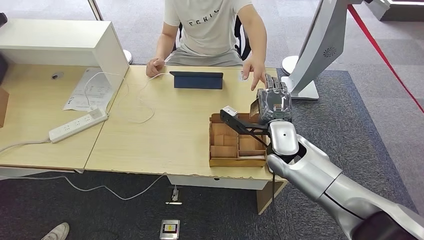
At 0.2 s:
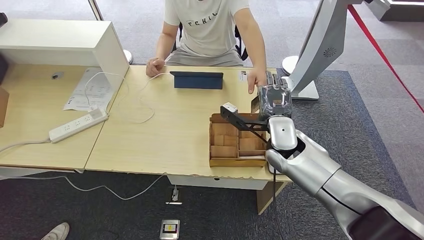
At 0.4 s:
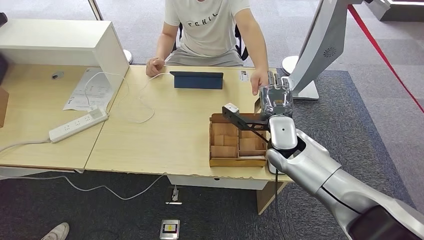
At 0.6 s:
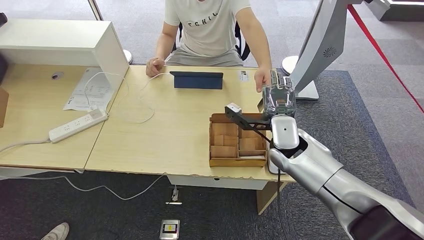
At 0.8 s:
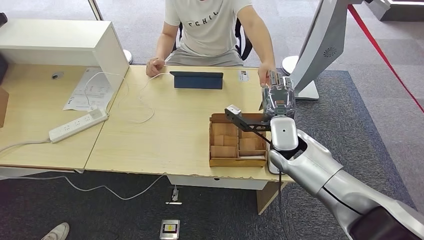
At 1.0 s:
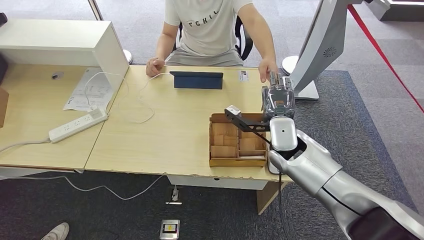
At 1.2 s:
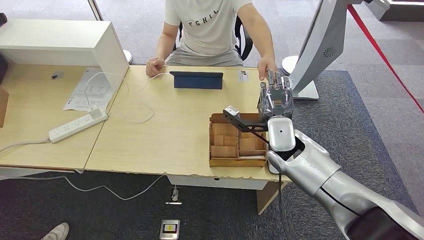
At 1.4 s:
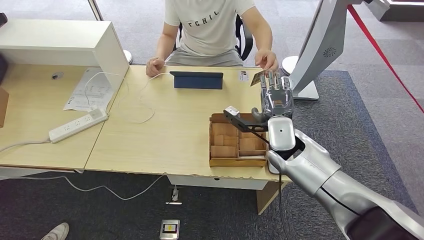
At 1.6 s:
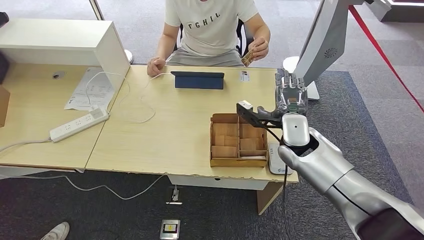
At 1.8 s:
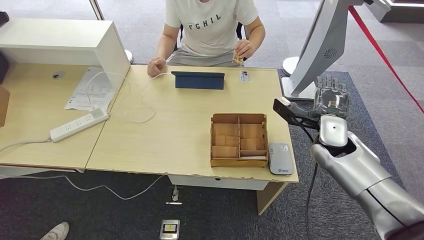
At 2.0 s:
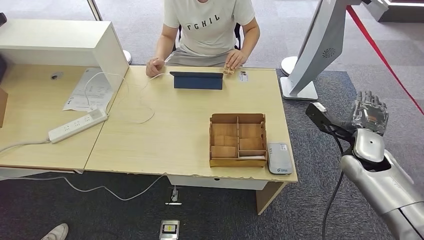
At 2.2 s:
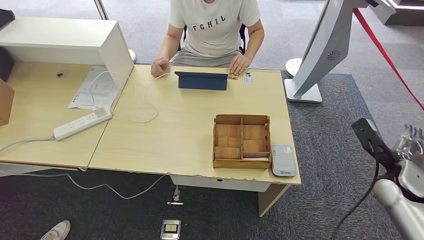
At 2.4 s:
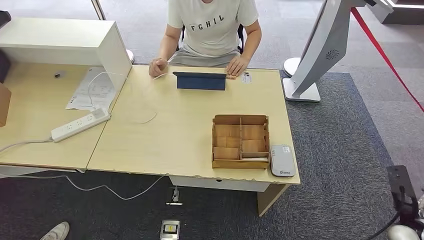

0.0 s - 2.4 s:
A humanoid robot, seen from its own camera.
Step, 0.0 s - 2.2 s: Hand the room key to the person.
0.0 s - 1.2 s: The hands stay close to where they were, moving slightly.
1.2 s - 2.4 s: The right hand is displaced to the right, backward and downward by about 40 cm.

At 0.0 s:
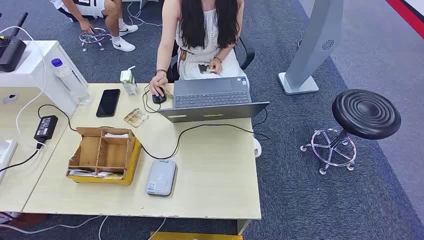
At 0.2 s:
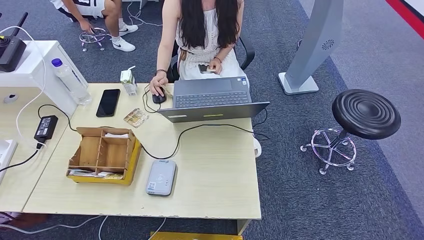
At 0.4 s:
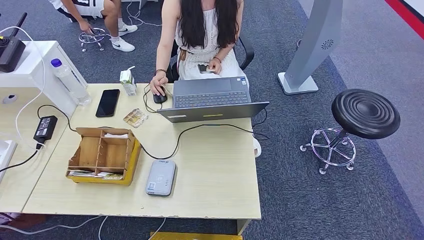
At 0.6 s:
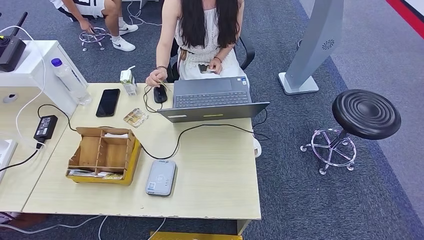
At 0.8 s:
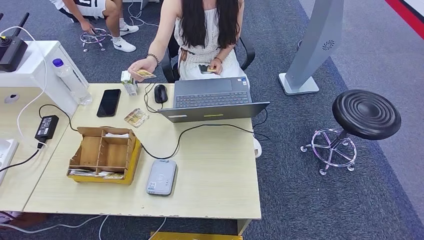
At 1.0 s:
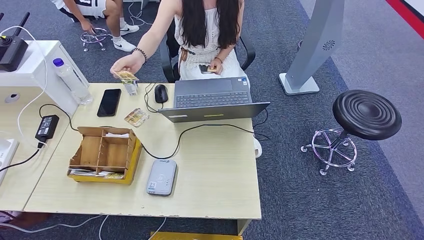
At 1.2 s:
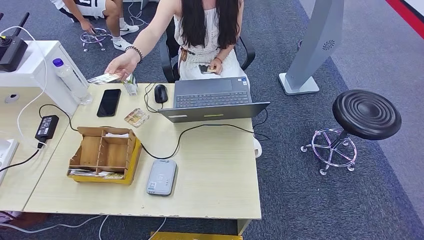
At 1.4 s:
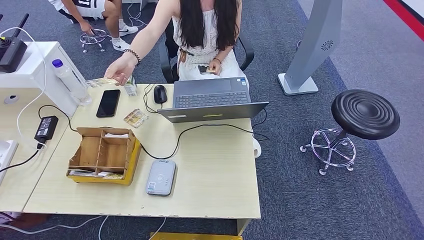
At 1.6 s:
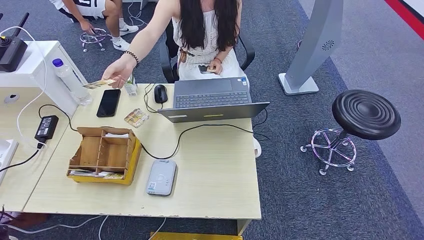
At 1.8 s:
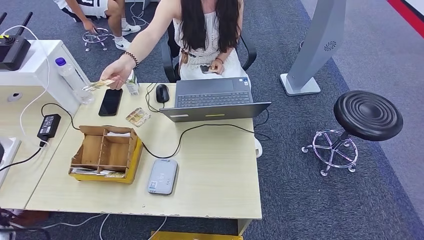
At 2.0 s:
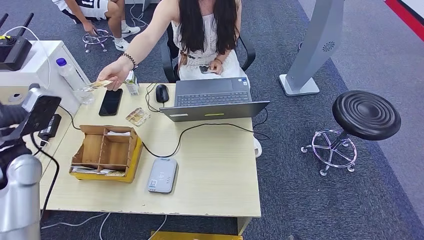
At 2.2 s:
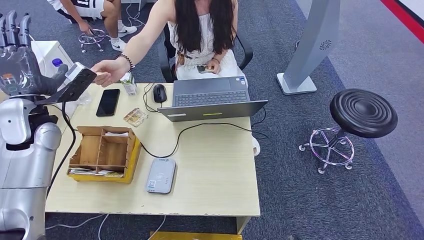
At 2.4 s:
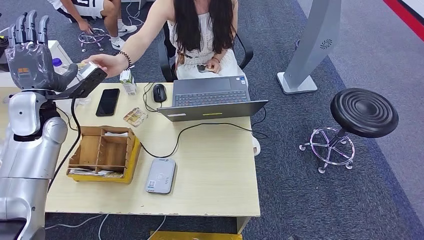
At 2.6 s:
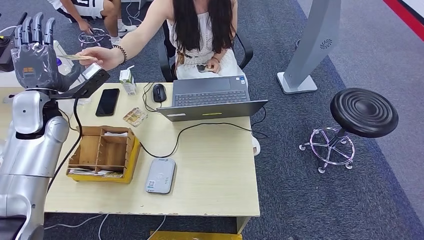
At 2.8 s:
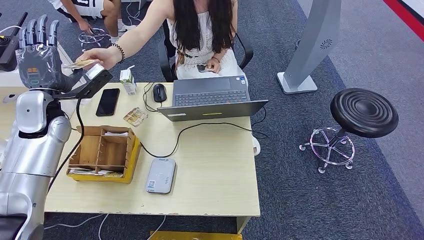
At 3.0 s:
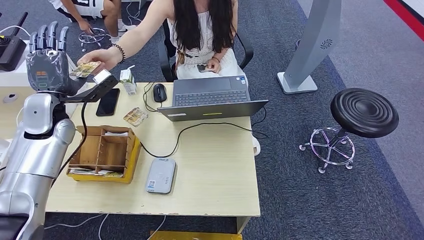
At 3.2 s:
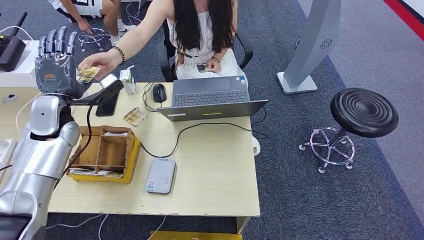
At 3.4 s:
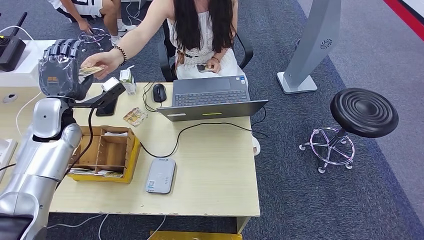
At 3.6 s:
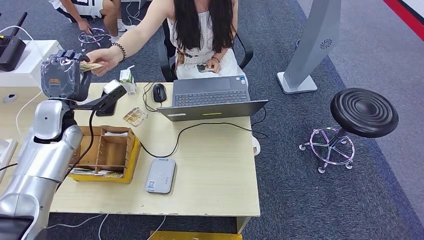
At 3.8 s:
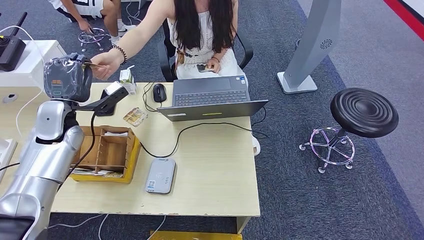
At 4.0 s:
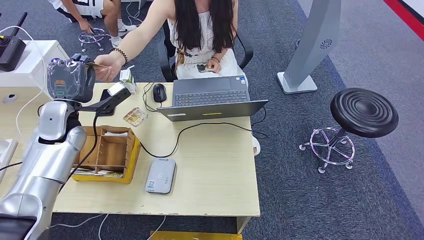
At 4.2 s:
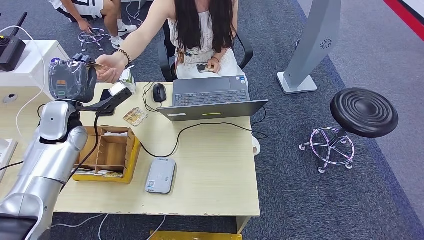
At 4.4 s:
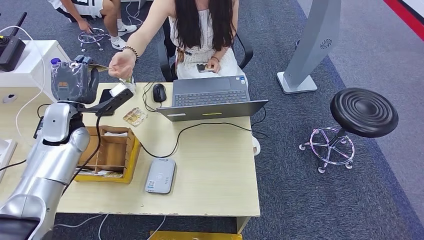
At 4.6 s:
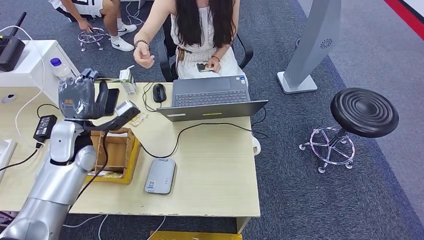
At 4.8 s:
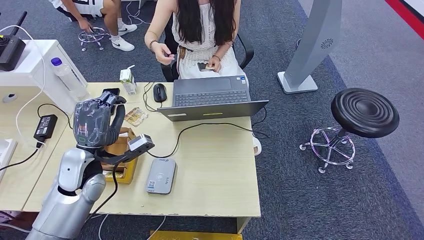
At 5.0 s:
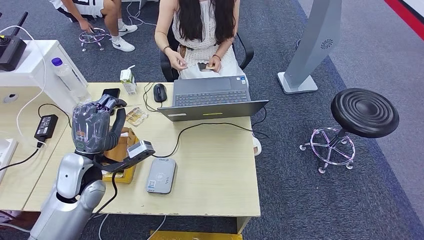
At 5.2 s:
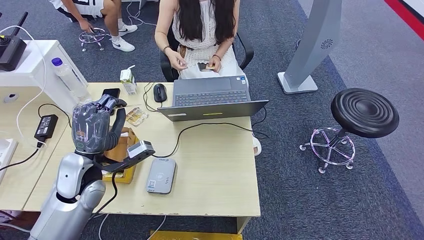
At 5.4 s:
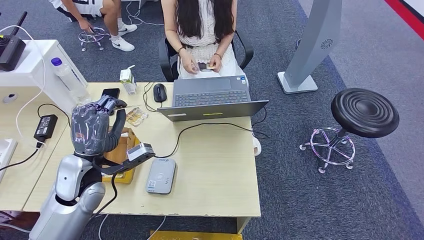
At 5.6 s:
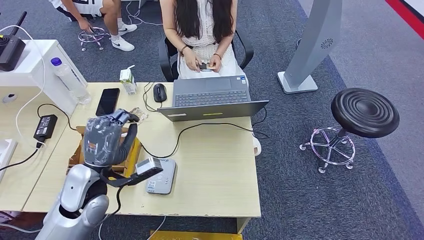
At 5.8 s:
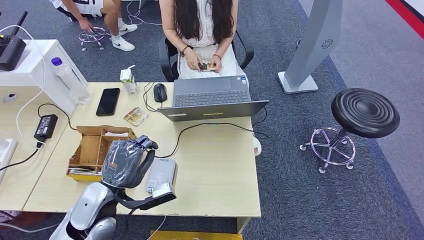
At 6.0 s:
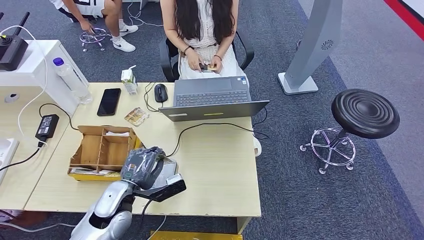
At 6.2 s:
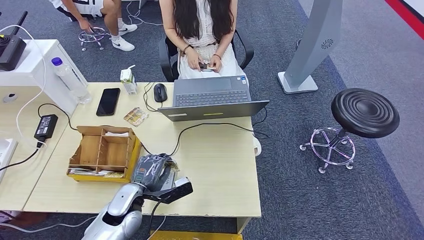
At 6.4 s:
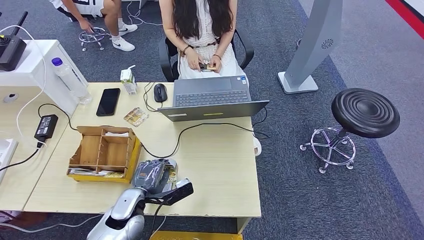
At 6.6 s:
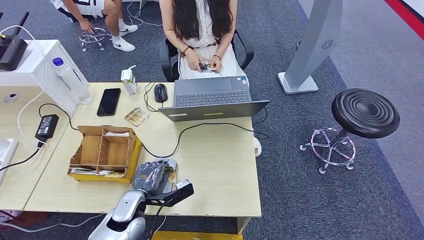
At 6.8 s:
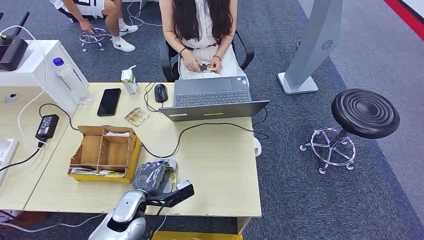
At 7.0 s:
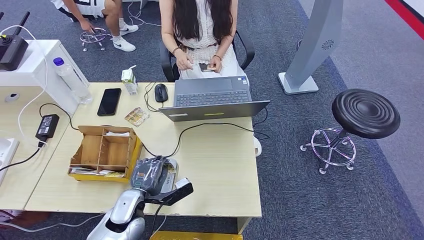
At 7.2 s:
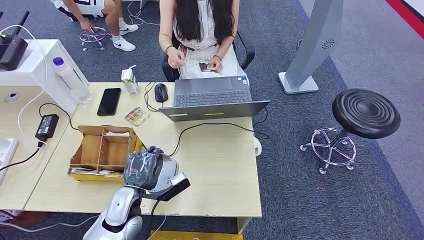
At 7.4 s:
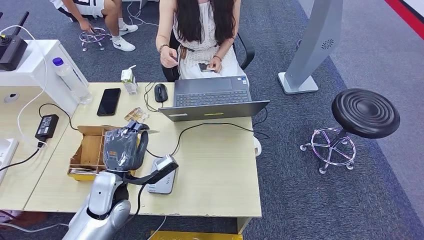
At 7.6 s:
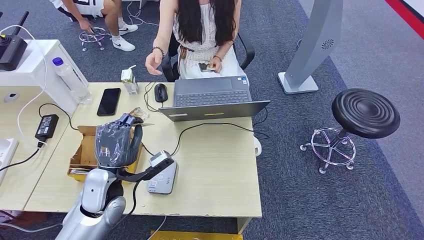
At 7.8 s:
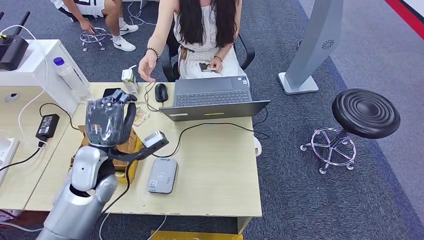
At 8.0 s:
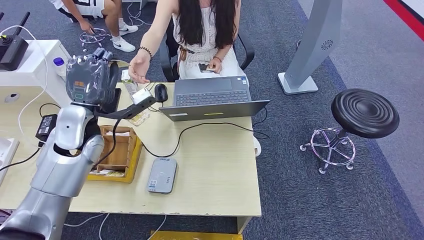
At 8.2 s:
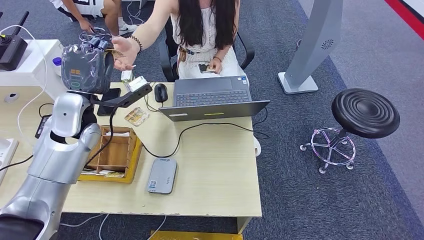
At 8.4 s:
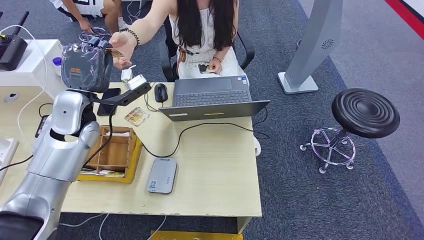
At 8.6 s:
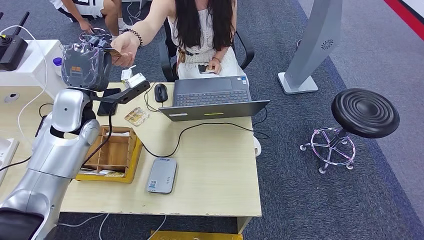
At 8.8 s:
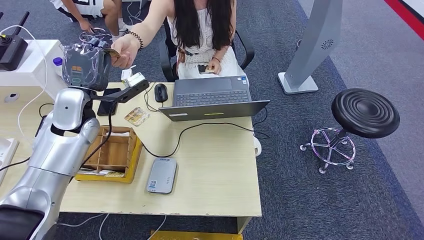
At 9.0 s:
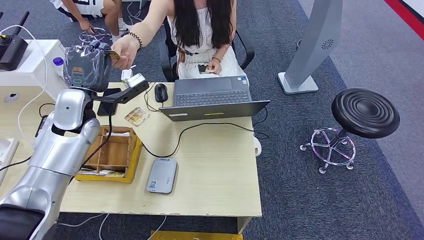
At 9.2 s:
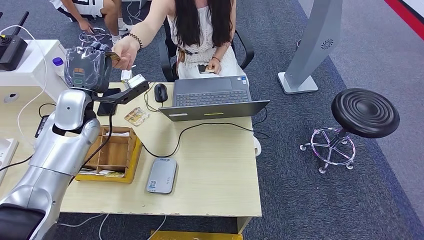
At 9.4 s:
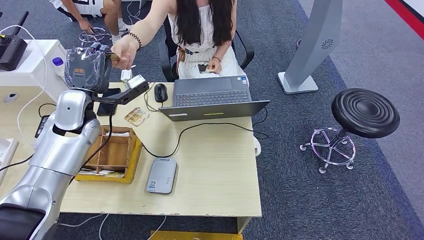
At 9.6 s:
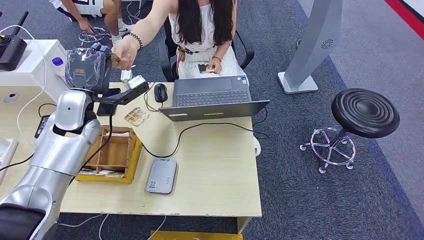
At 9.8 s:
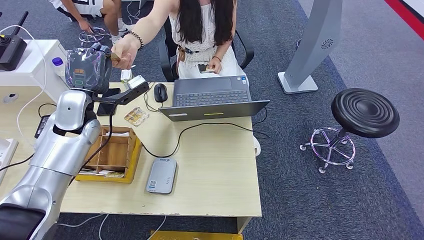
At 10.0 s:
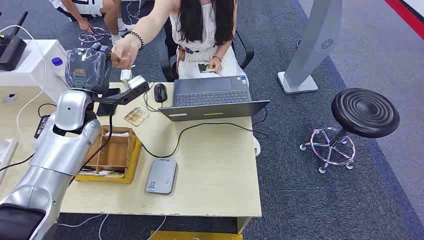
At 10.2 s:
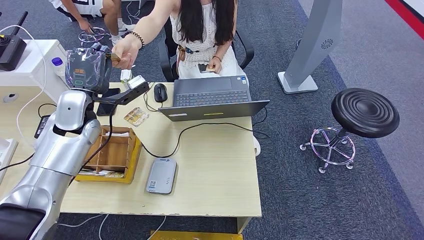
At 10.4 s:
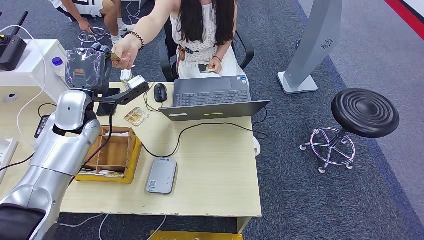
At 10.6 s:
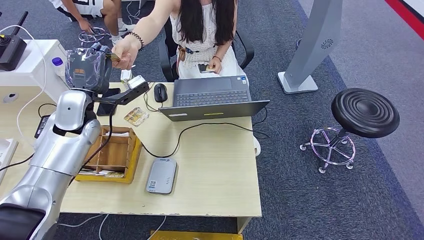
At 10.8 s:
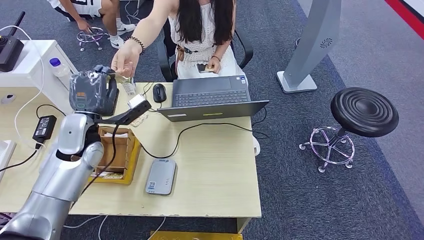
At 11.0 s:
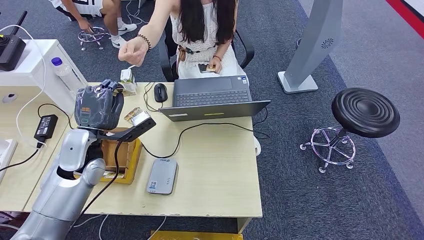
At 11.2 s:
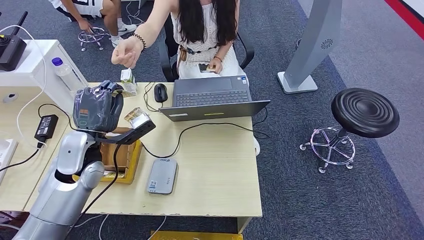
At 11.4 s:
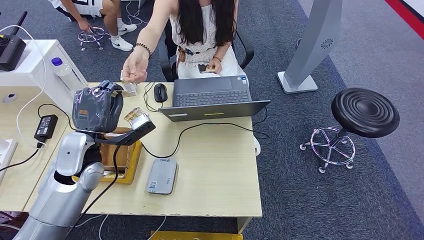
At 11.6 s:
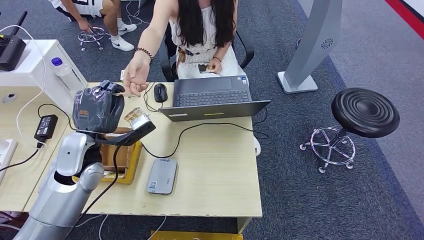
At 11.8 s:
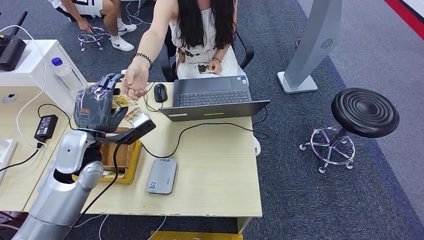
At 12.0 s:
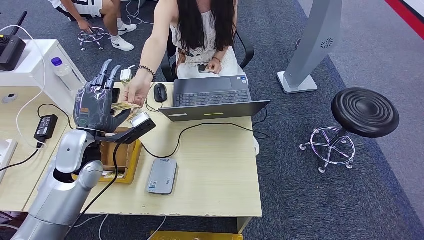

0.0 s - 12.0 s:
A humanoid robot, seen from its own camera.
Step, 0.0 s - 5.4 s: Take the ID card from the person's hand.
Step, 5.6 s - 7.2 s: Place the ID card on the card reader.
Step, 7.4 s - 9.8 s: Hand the ID card to the person.
3.0 s - 4.4 s: The hands stay close to where they were, moving slightly.
6.0 s - 7.6 s: The left hand ends up some 5 cm from where it was.
7.6 s - 9.0 s: The left hand goes approximately 20 cm forward, upward and to the left.
9.0 s - 10.4 s: The two hands keep their place.
10.4 s - 12.0 s: The left hand moves backward, about 10 cm.

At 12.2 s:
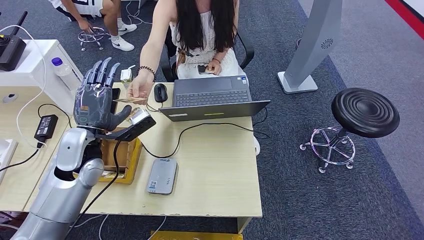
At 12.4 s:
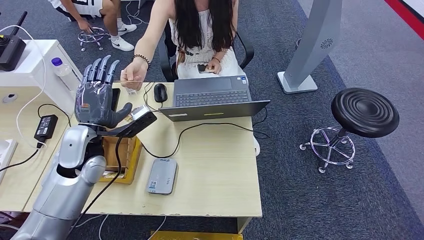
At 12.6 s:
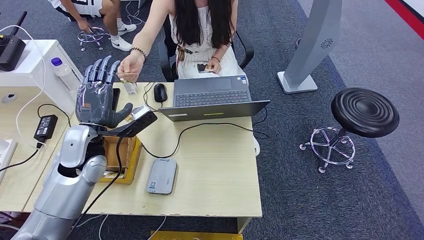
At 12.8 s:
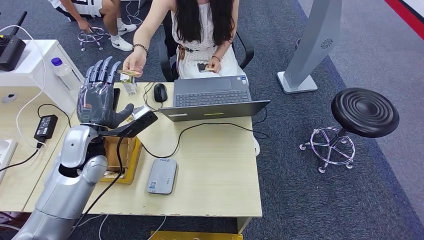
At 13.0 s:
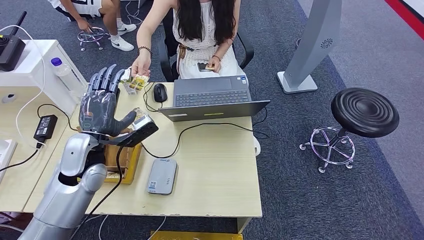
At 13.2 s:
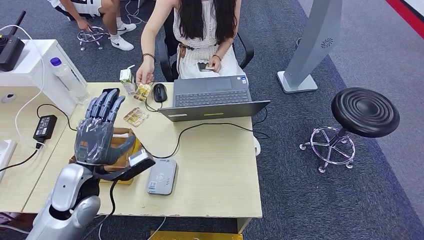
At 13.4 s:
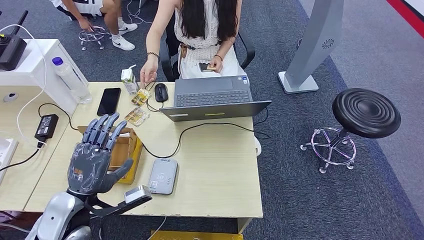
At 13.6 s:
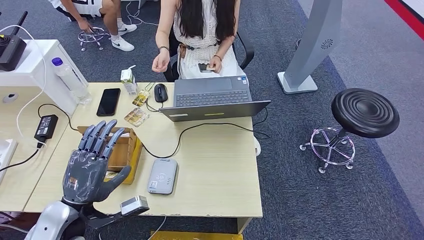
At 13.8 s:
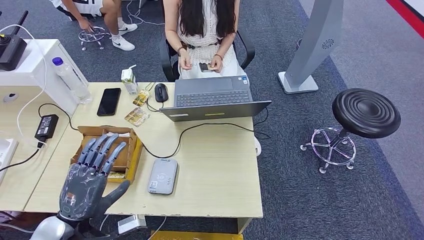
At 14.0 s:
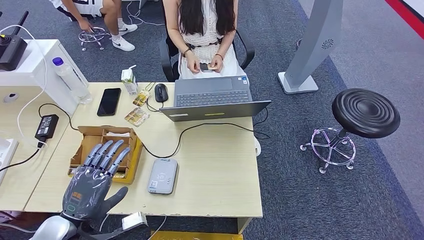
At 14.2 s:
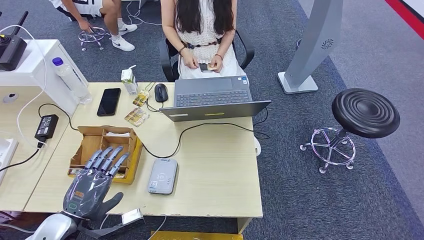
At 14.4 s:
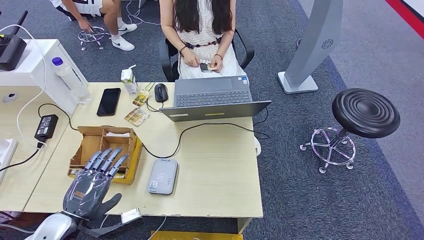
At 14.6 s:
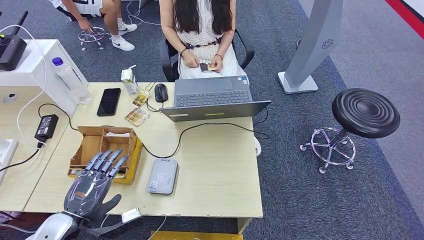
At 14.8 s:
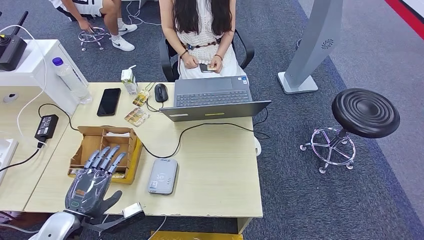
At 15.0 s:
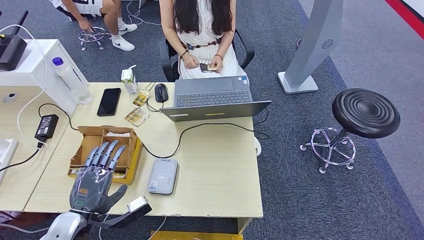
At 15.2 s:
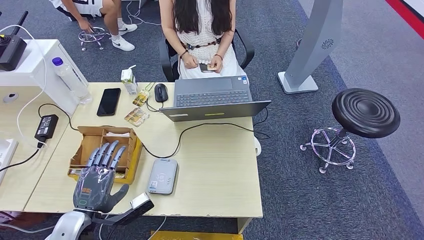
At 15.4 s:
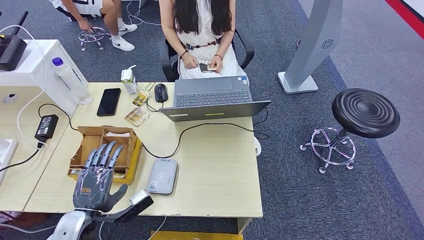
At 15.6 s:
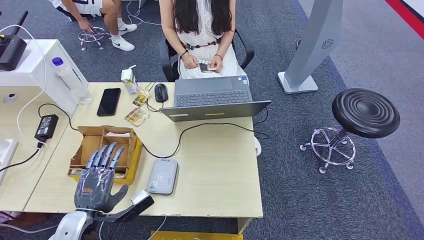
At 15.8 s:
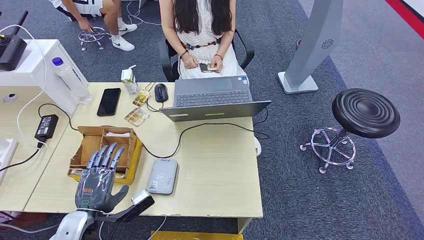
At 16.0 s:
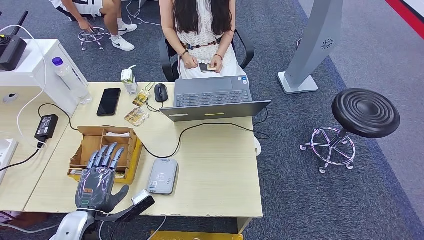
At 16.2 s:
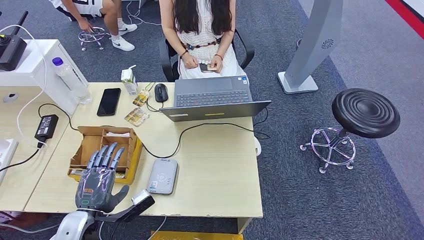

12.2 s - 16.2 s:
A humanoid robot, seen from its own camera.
12.2 s - 13.6 s: The left hand moves backward, roughly 15 cm.
13.6 s - 14.8 s: The left hand moves some 5 cm.
14.8 s - 16.2 s: There are only small adjustments of the hands.
